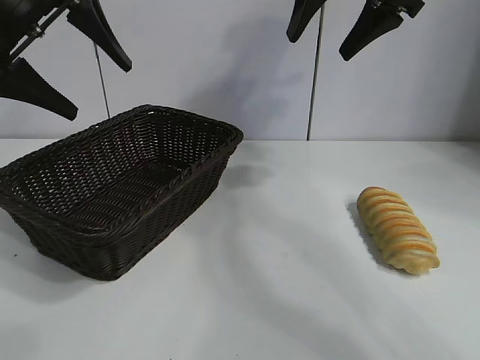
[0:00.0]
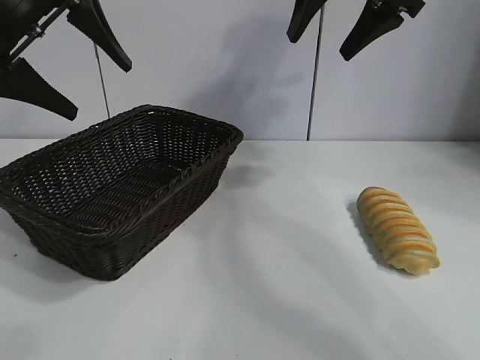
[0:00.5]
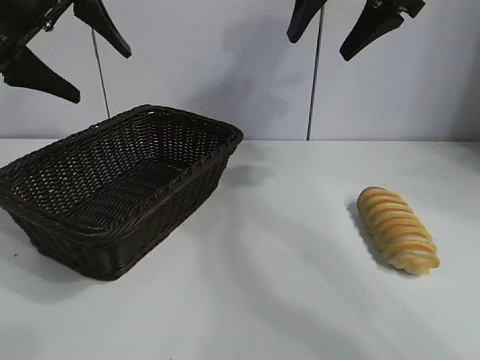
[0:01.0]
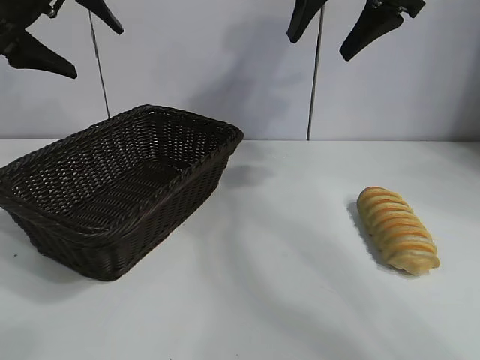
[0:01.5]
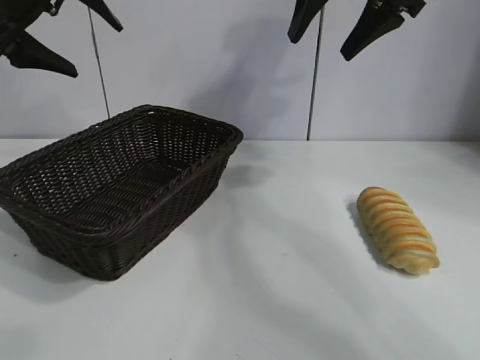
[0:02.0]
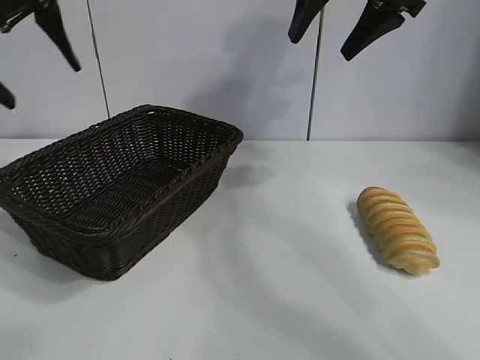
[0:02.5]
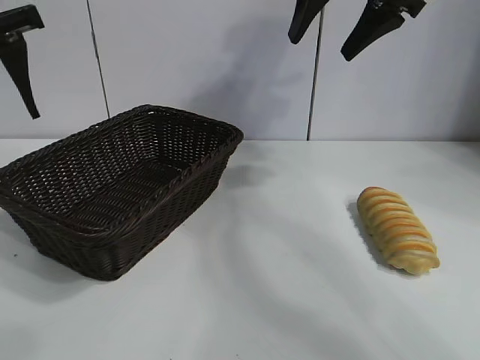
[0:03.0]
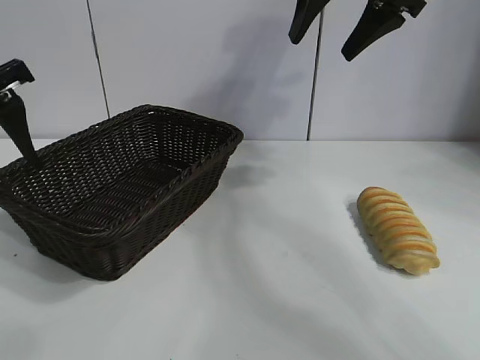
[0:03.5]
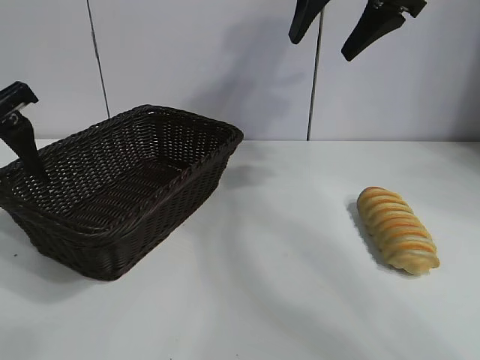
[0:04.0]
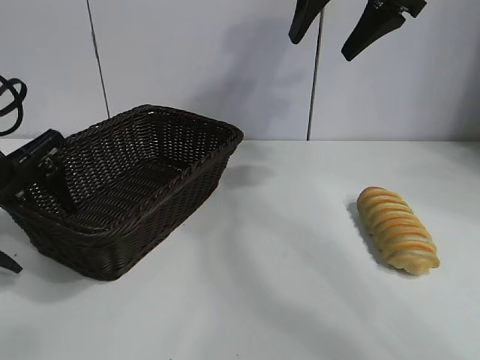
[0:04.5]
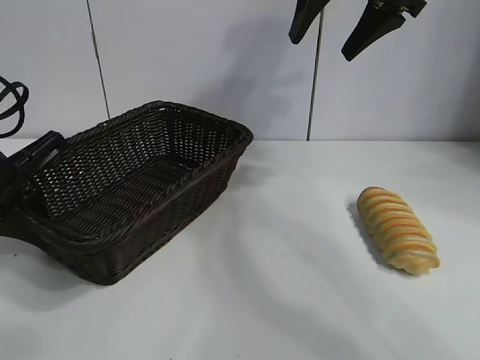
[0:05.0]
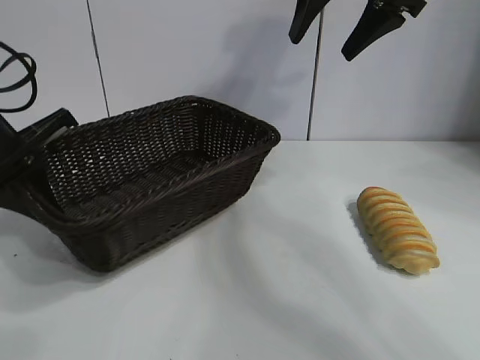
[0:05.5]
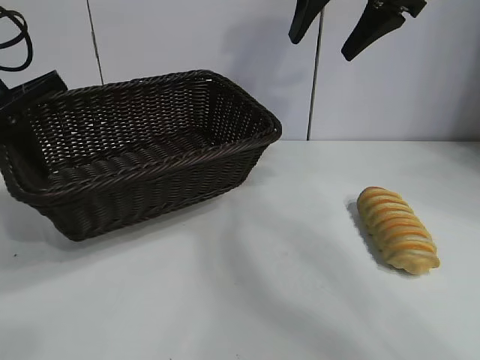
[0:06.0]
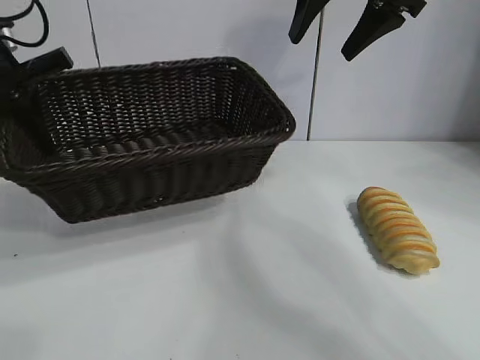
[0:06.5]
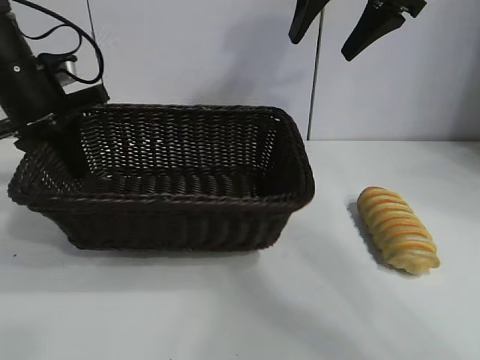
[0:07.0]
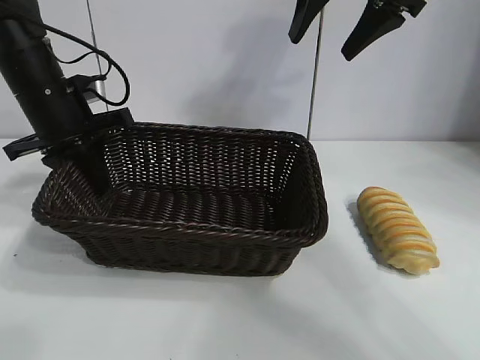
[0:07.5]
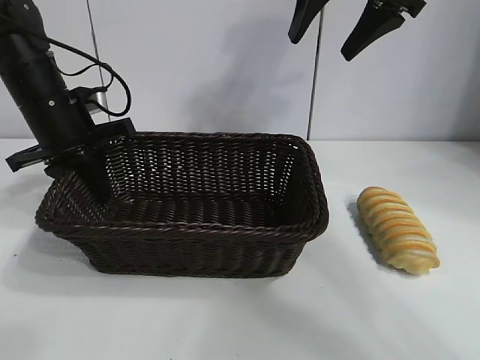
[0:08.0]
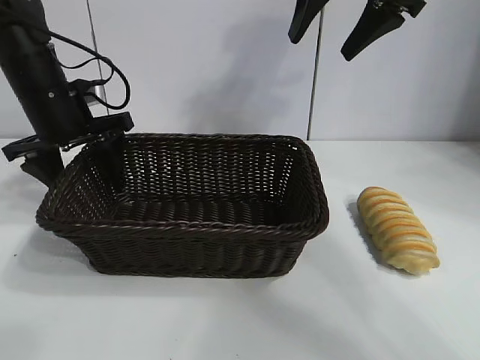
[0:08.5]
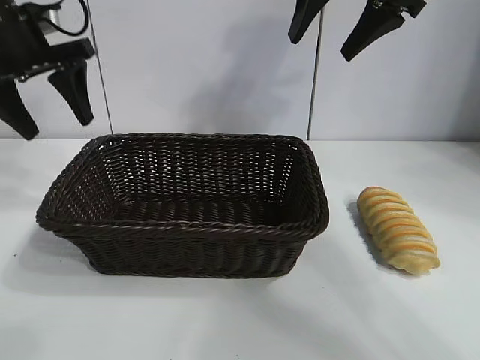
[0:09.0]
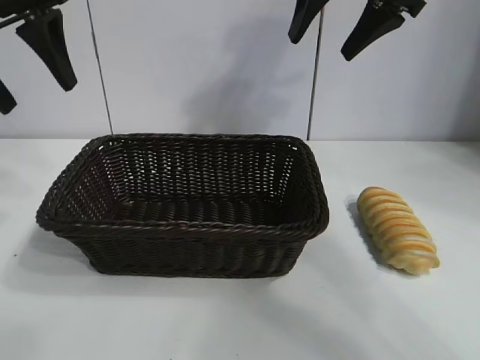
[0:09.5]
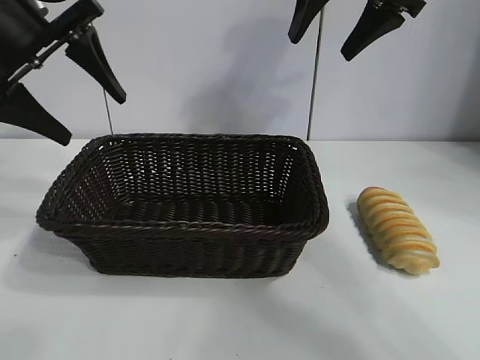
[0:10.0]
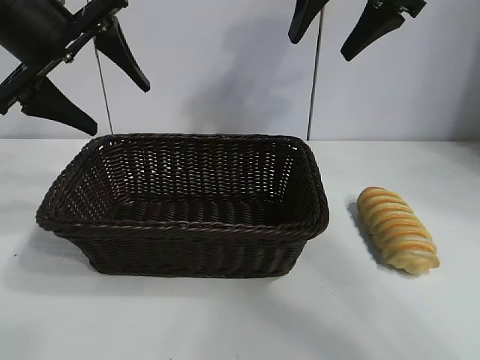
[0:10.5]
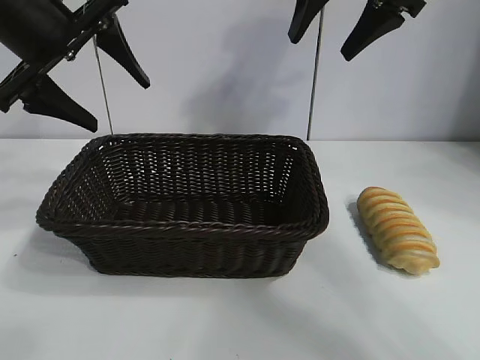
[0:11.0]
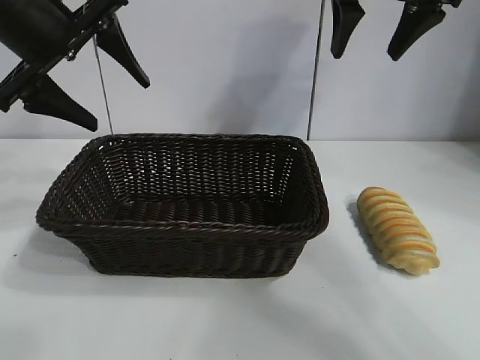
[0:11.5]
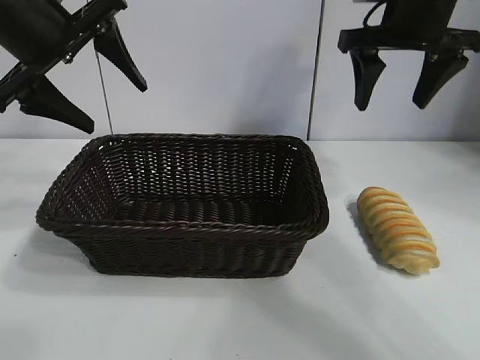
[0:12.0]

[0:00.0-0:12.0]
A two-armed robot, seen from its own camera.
Task of the whole recording: pick up the long bread and put it into the basket.
Step, 0:01.0 to 0:04.5: Grasp the basket with the left gripper.
Step, 0:05.0 to 0:08.0: Place the basket in the center of the table with the left gripper.

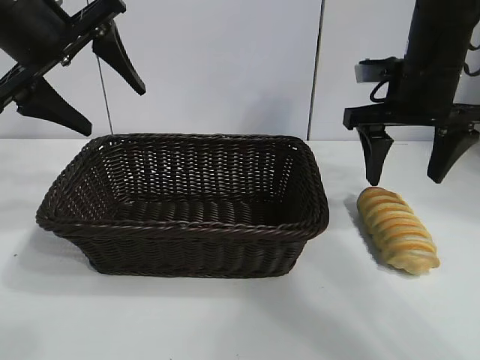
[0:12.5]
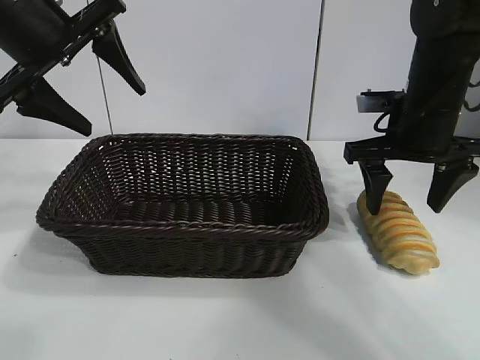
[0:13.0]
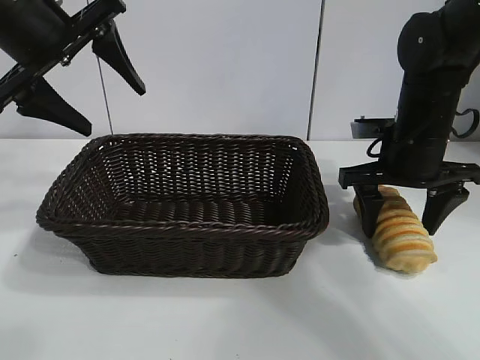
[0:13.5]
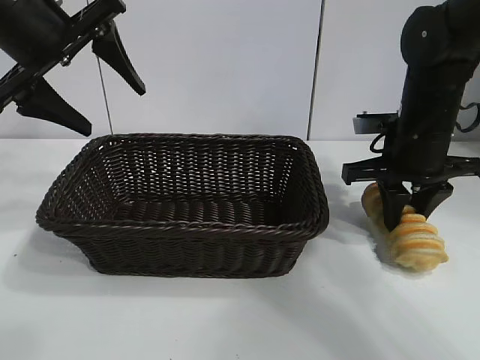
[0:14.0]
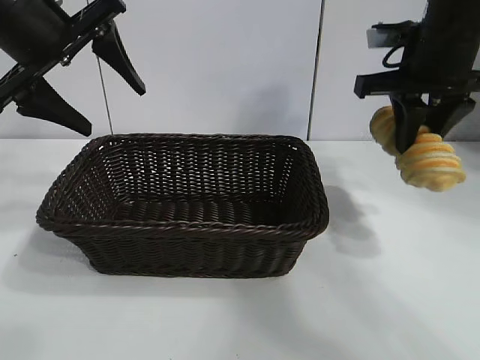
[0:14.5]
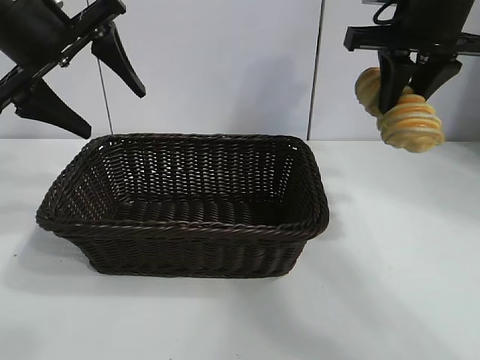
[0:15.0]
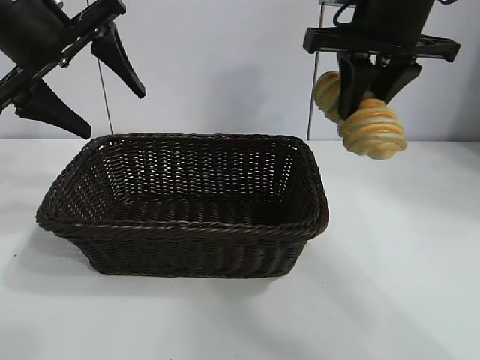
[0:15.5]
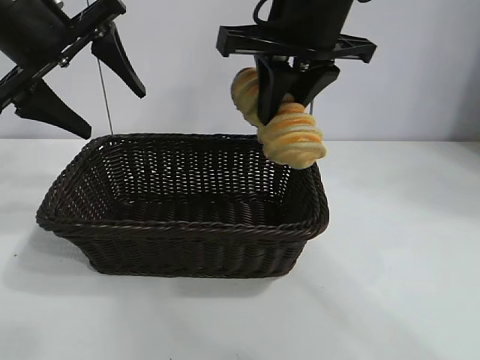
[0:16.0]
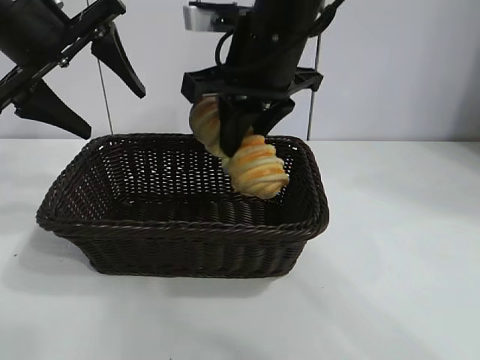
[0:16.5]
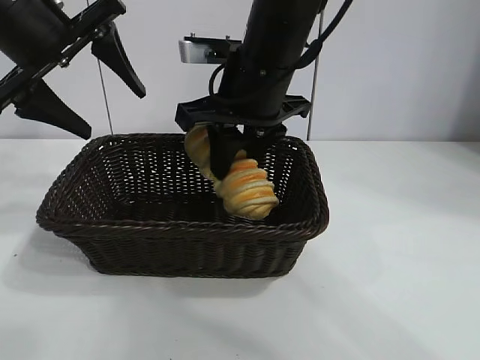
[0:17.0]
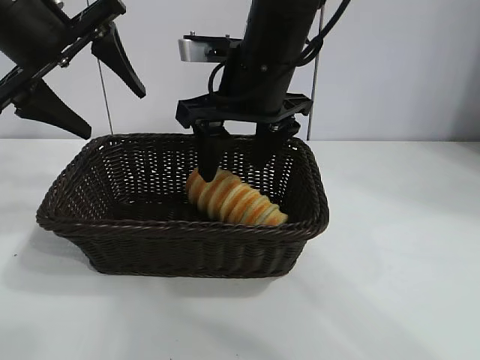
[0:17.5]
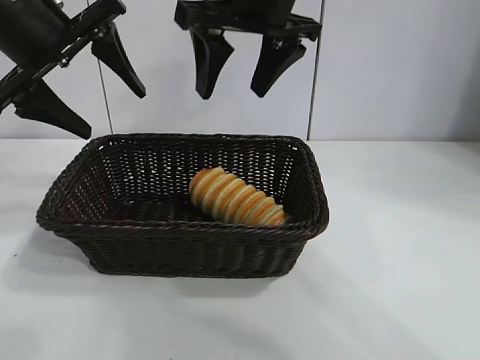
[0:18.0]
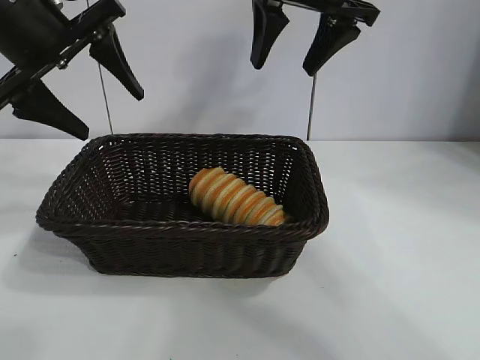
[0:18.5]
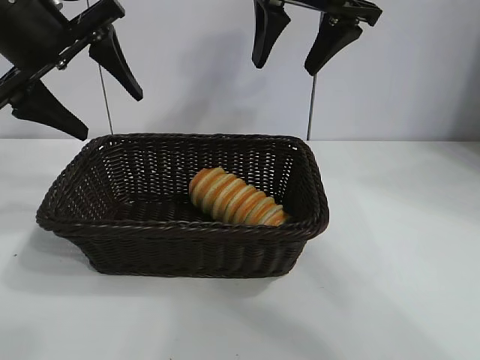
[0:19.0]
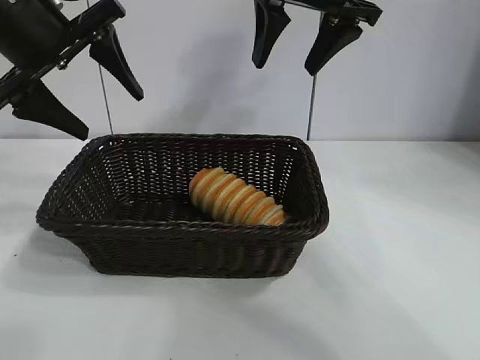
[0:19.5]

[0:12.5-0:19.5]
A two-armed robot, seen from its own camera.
Task of the whole recording: pick up the long bread and put it into the basket.
Step, 0:14.0 to 0:17.5: Place the long bread in the basket with right gripper.
